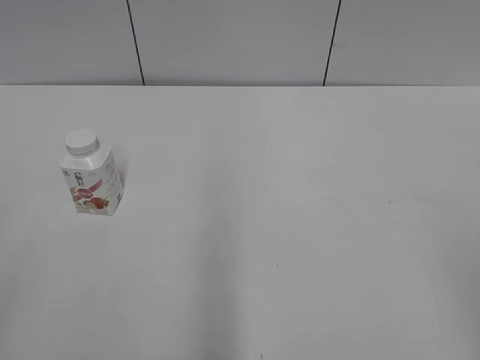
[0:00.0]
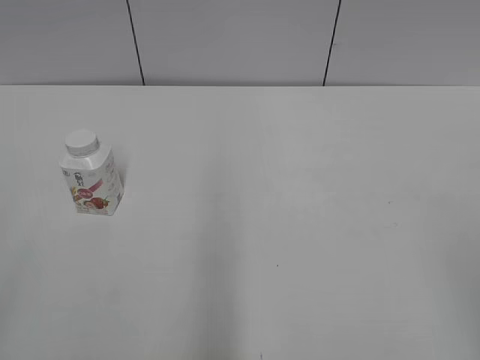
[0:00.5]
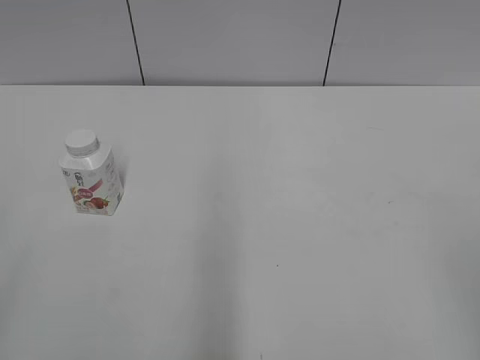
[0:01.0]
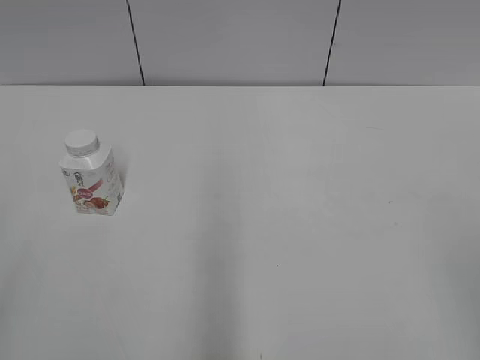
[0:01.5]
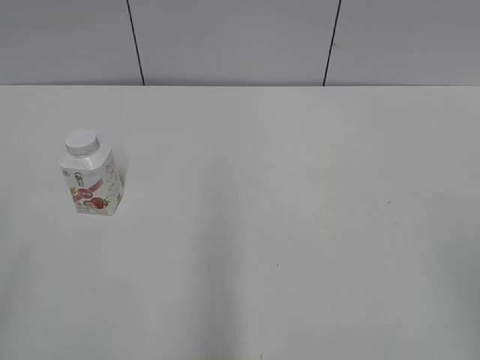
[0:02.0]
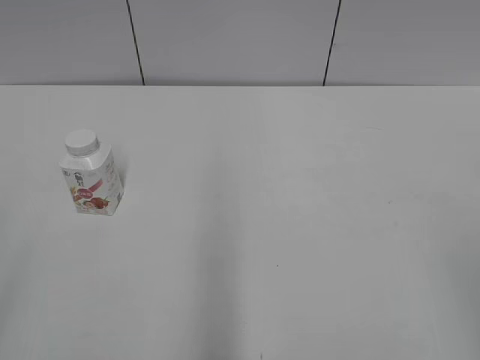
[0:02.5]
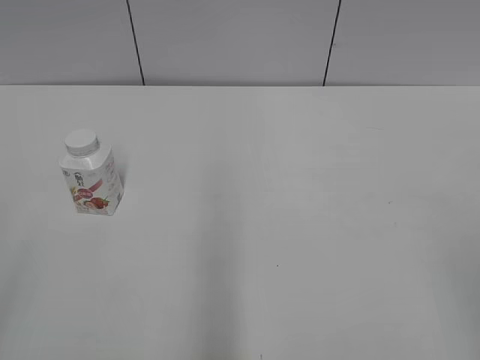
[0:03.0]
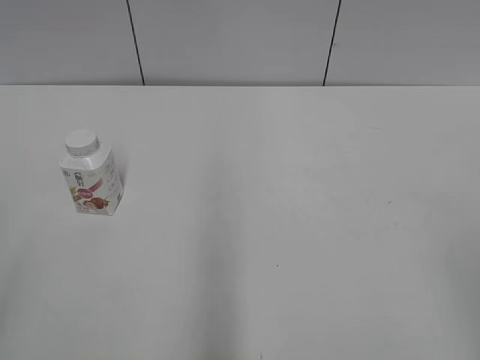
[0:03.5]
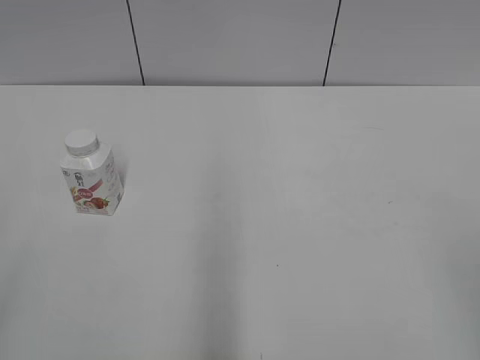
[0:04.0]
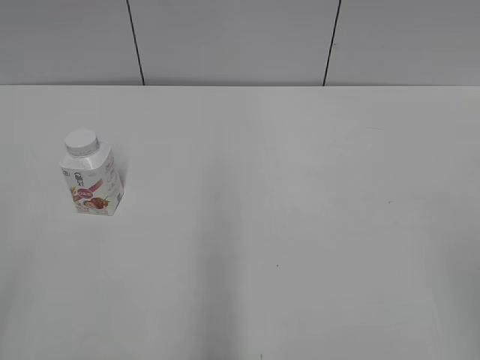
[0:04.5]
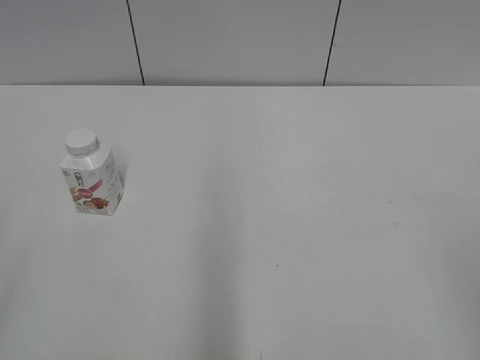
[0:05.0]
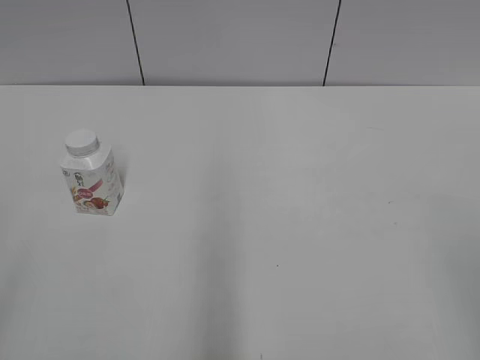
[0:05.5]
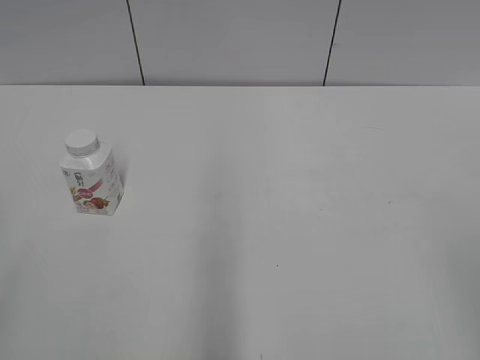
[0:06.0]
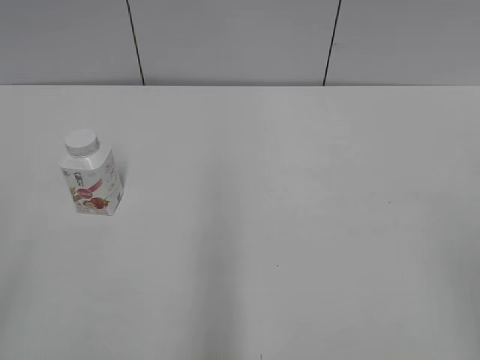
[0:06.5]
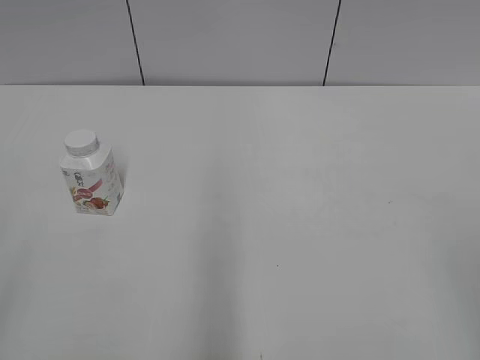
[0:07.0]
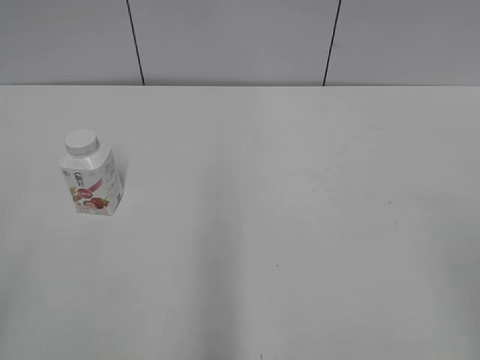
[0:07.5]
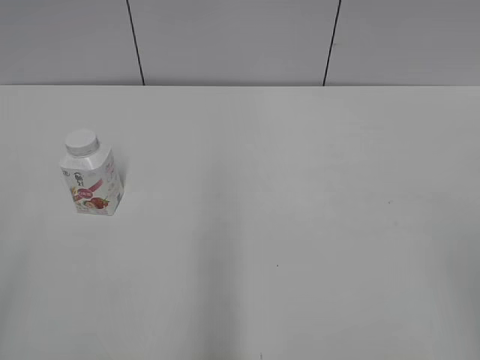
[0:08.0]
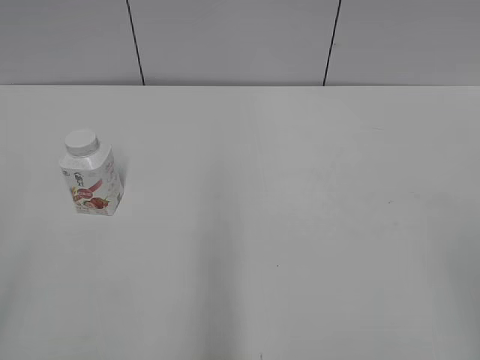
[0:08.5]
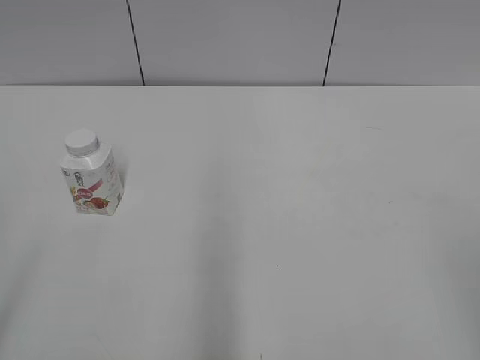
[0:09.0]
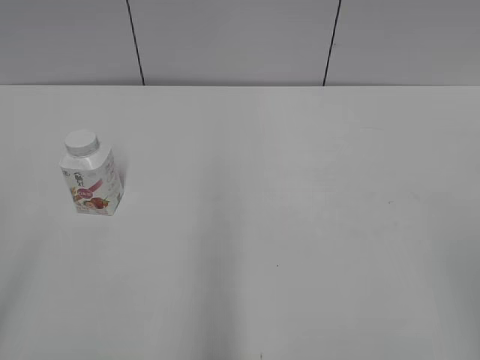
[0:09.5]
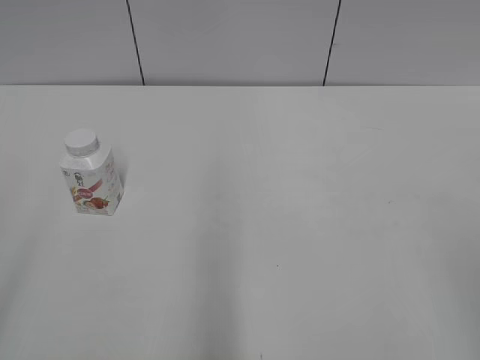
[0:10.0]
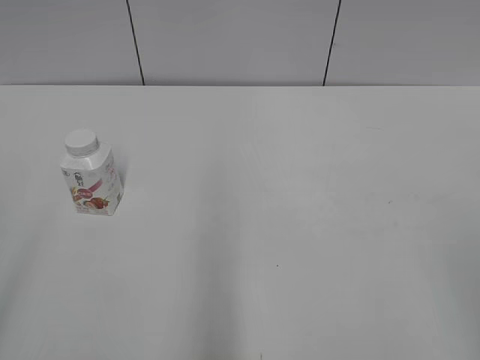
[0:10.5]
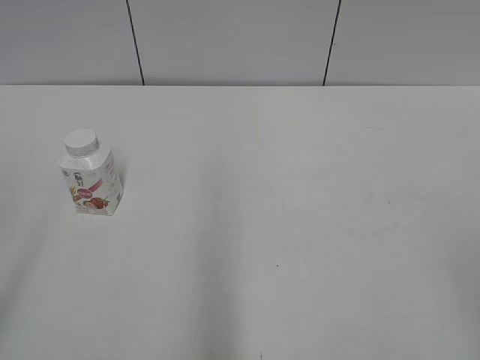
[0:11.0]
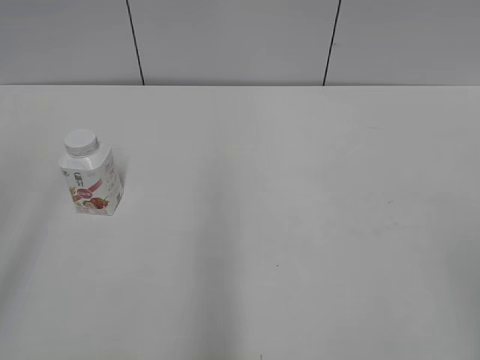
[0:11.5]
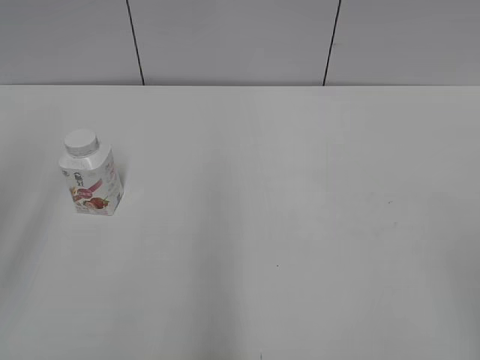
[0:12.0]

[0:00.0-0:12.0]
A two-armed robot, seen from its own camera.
2.0 to 8.0 s: Neither gripper changes place.

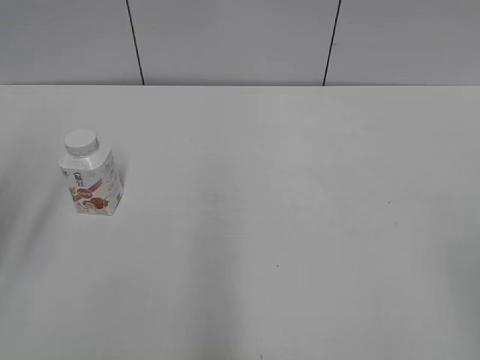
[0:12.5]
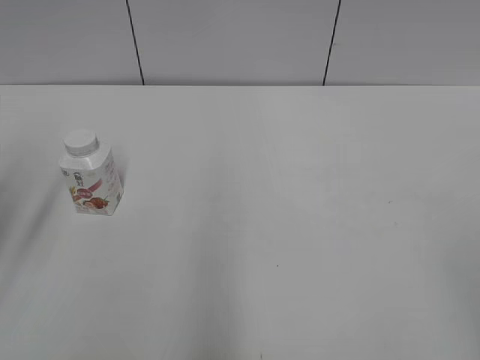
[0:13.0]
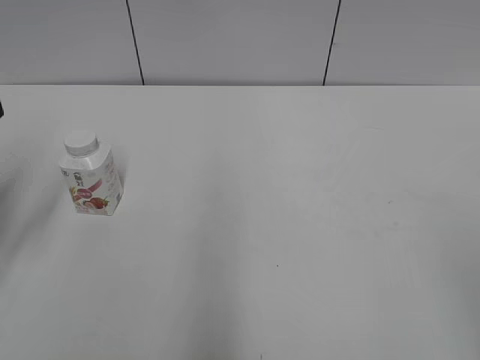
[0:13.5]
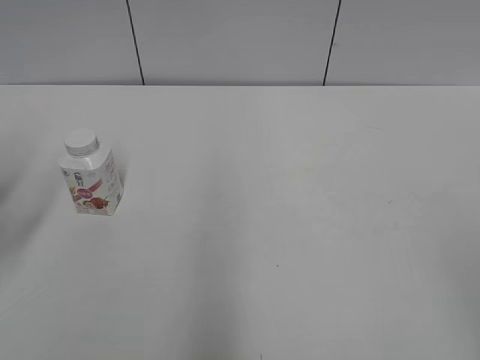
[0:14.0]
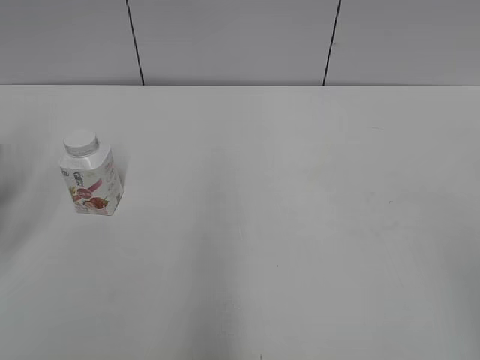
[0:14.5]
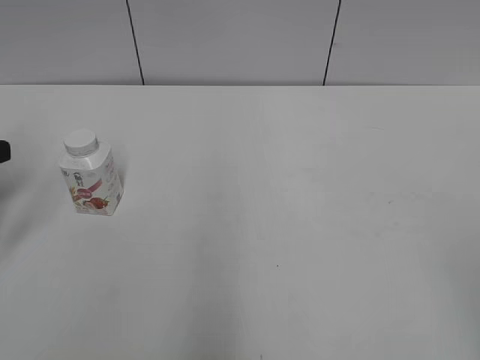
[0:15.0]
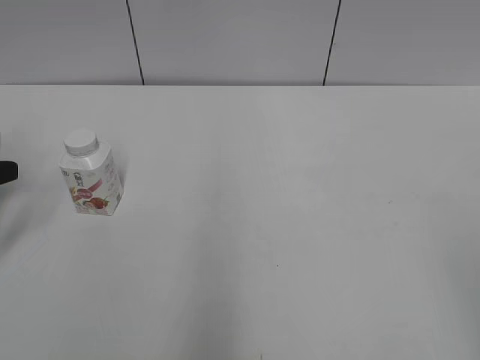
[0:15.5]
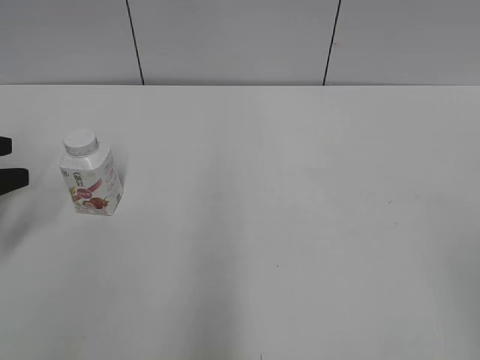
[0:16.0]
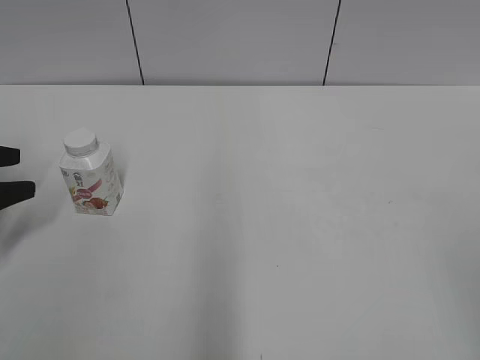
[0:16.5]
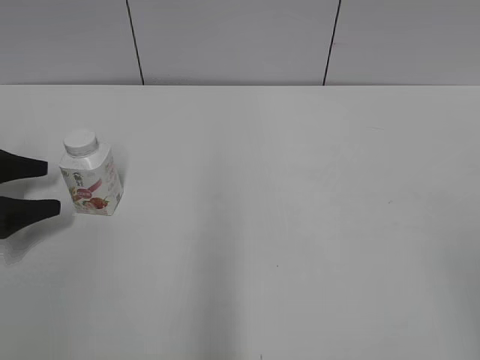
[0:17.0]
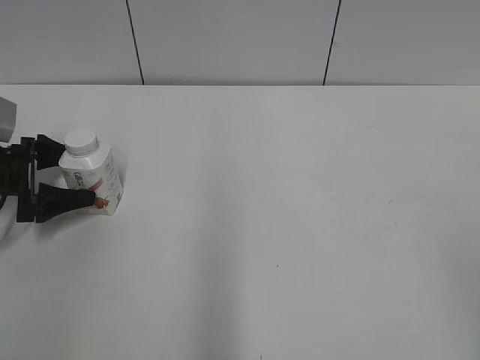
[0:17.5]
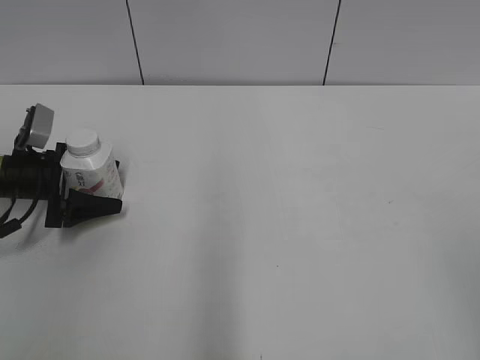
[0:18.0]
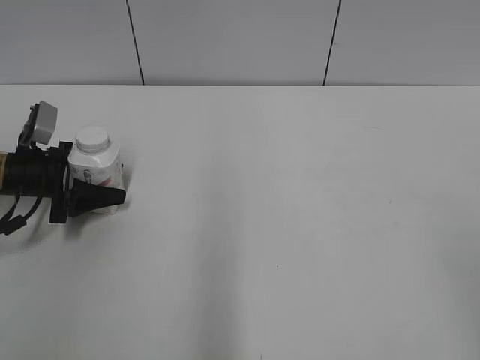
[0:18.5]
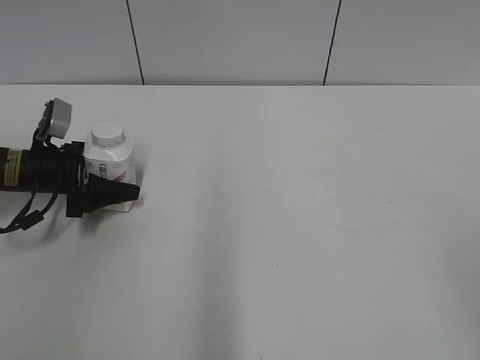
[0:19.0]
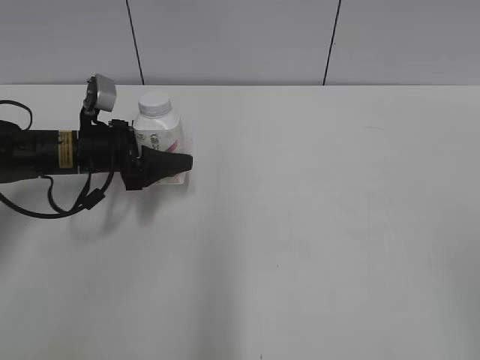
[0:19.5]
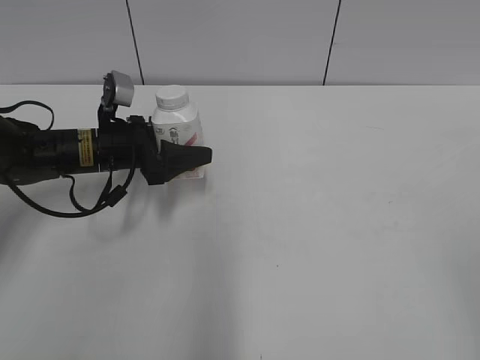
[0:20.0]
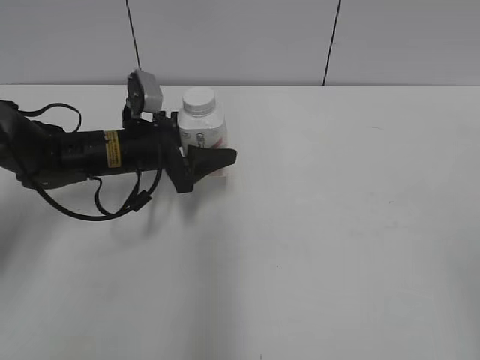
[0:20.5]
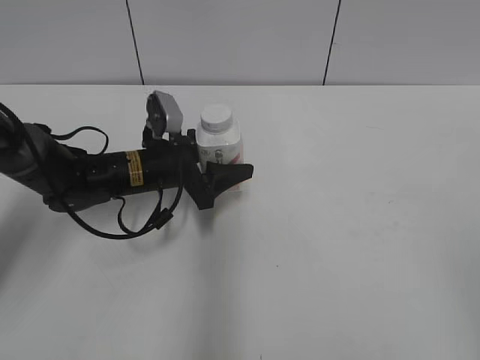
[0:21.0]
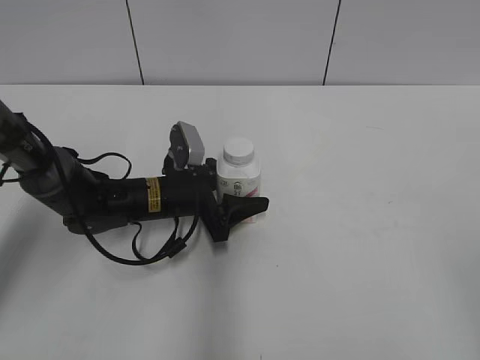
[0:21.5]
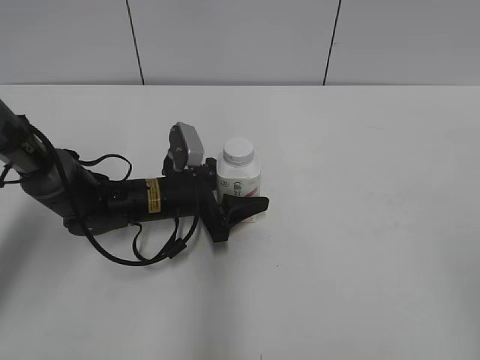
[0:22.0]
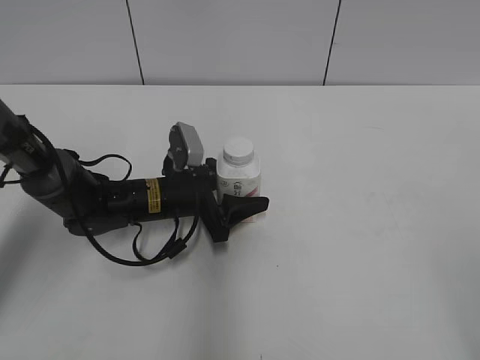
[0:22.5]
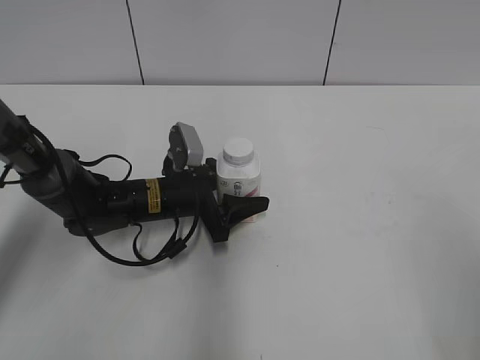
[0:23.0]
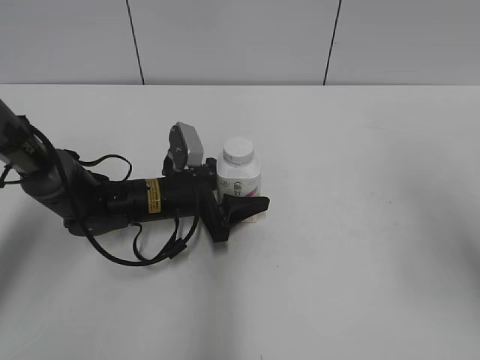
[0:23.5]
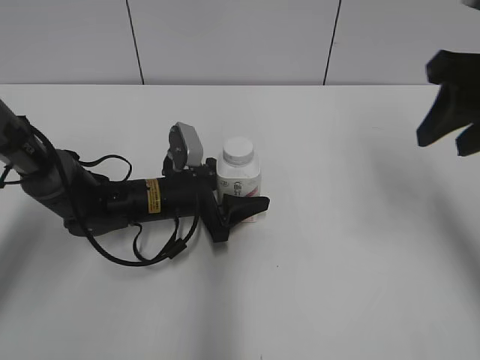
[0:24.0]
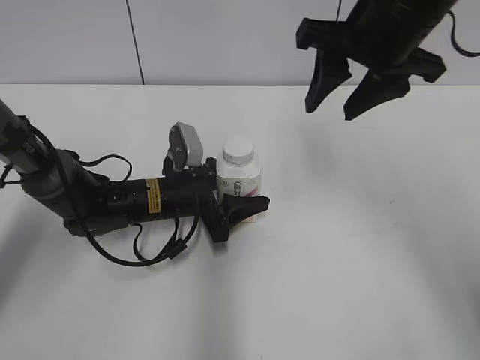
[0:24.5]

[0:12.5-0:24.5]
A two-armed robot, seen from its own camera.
Step, 12.5 to 18.5 s: Grab the Yili Changqing with the left hand.
Step, 19.0 to 22.0 s: Move the Yili Changqing from left to right.
14.5 to 16.5 s: The left gripper moves downward, about 10 cm.
16.5 to 18.5 s: The left gripper heads to the right, forward and downward, covering approximately 15 cm, and closes its fingers.
18.5 to 20.5 s: The left gripper is displaced to the right by about 15 cm.
20.5 to 22.5 s: The left gripper goes approximately 5 cm downward.
22.5 to 24.5 s: The right gripper moves forward and to the left, roughly 35 cm, and closes up.

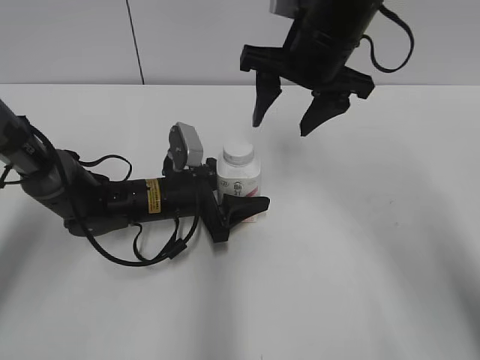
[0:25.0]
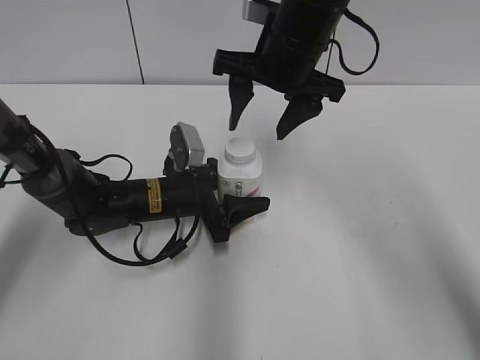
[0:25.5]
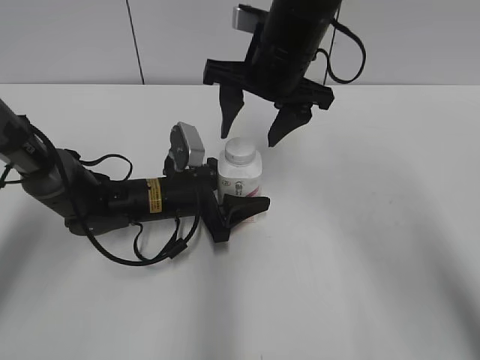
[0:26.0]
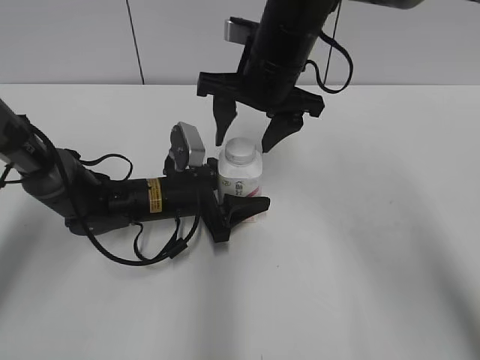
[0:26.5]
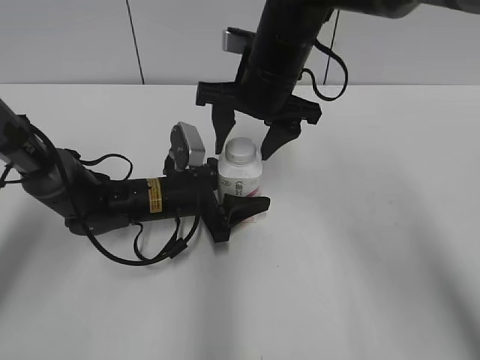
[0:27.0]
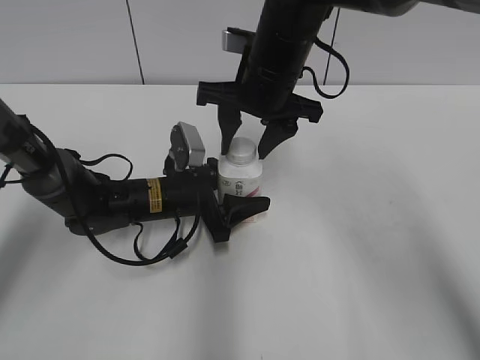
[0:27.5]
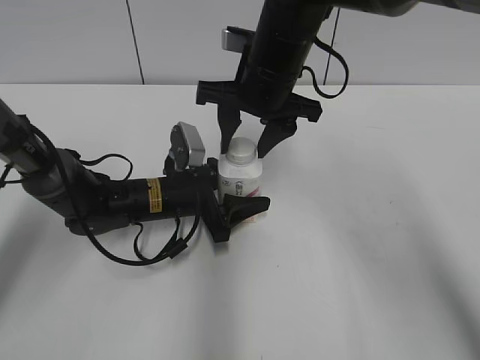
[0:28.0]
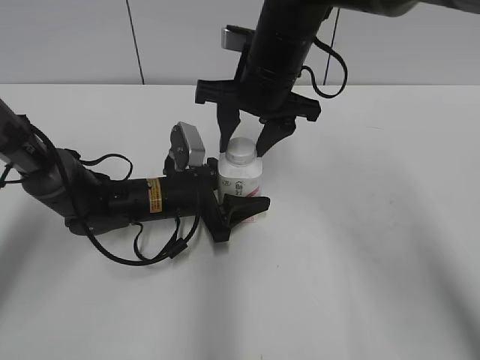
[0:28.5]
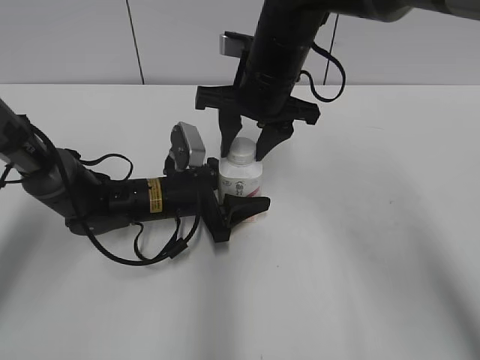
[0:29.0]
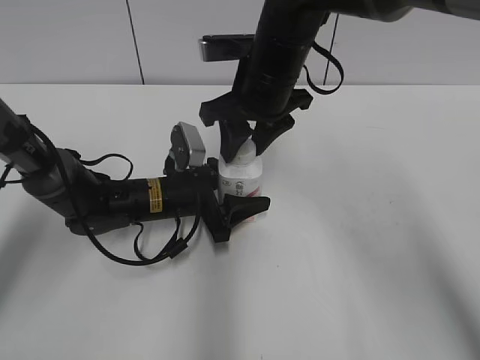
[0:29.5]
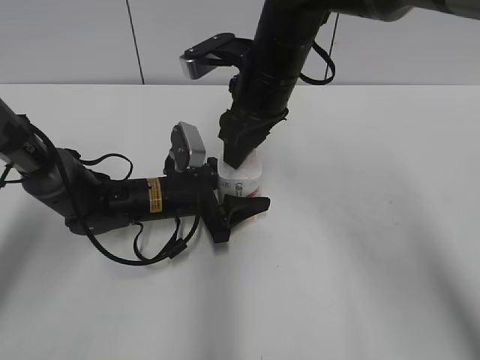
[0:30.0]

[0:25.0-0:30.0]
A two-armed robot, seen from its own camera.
25.0 to 27.5 s: The right gripper shifts by roughly 5 cm, and closes.
